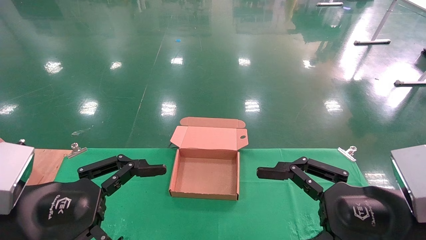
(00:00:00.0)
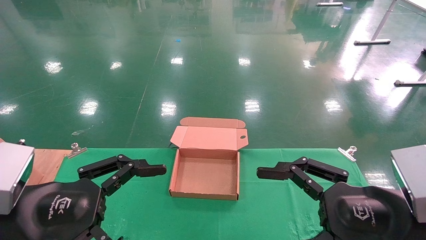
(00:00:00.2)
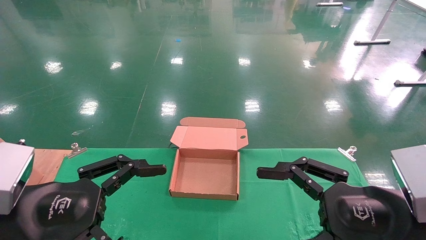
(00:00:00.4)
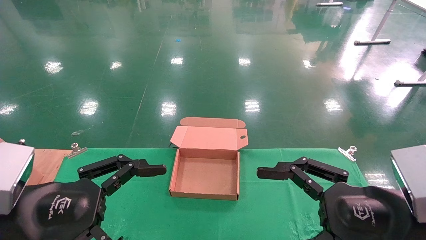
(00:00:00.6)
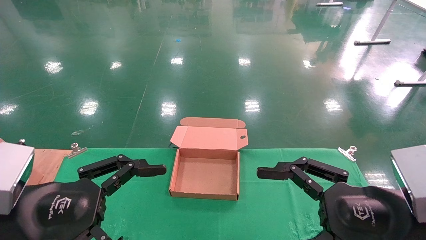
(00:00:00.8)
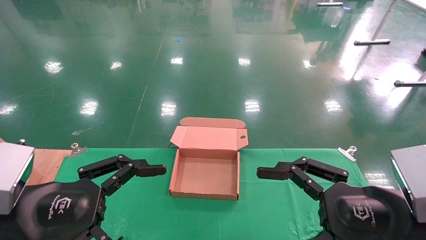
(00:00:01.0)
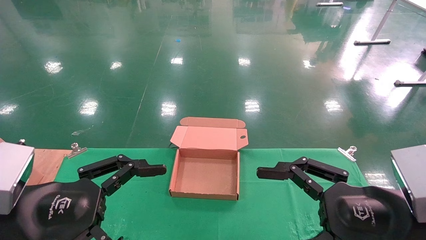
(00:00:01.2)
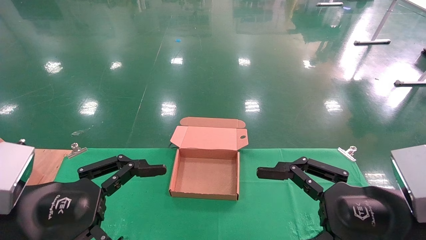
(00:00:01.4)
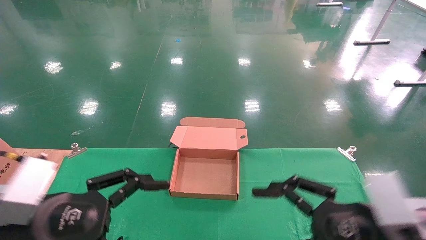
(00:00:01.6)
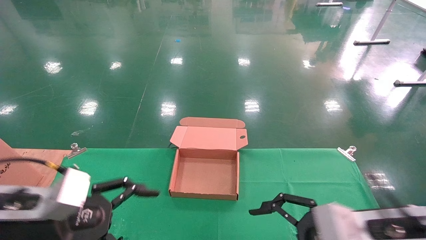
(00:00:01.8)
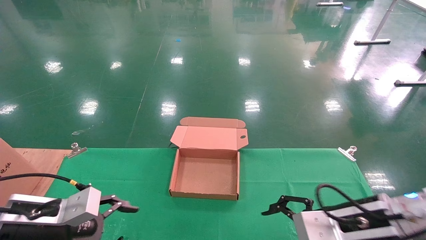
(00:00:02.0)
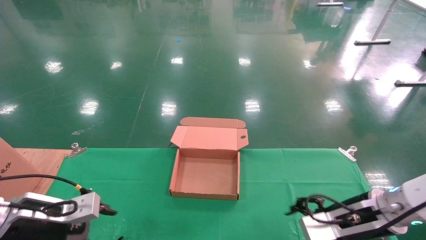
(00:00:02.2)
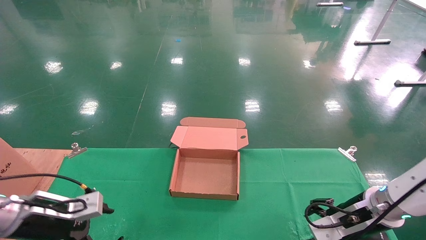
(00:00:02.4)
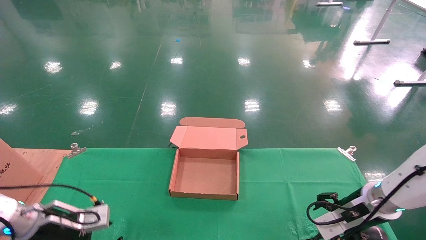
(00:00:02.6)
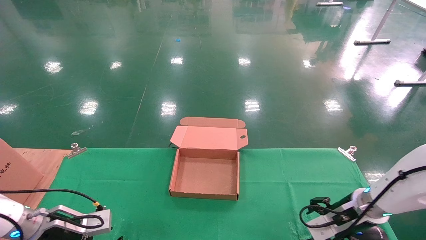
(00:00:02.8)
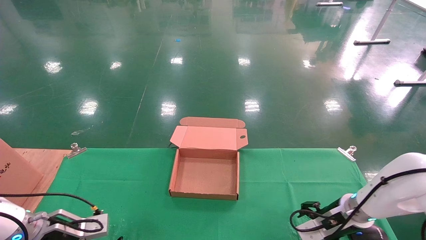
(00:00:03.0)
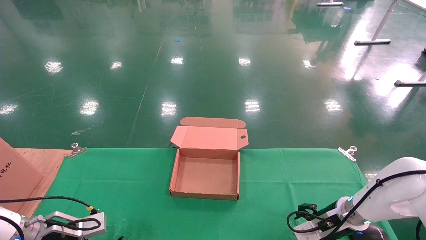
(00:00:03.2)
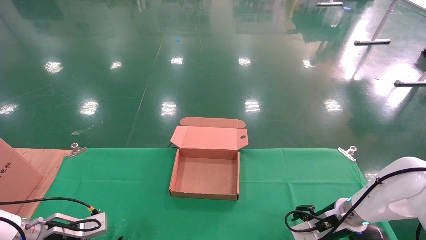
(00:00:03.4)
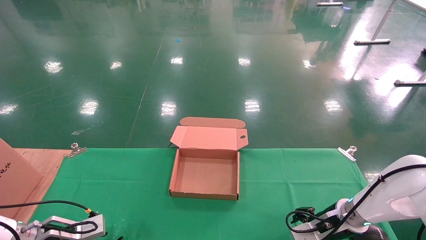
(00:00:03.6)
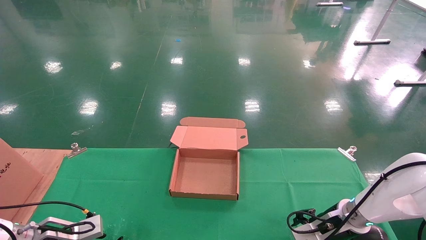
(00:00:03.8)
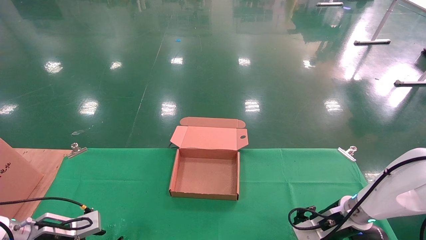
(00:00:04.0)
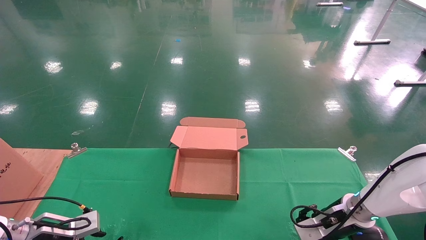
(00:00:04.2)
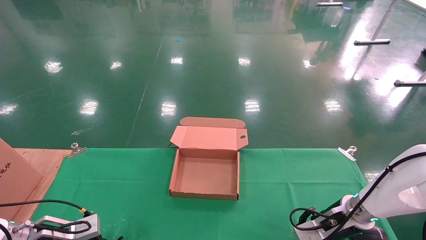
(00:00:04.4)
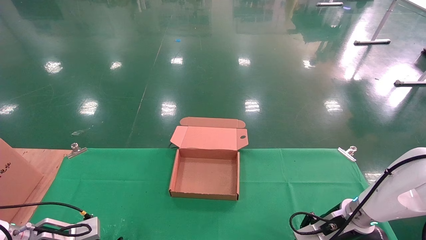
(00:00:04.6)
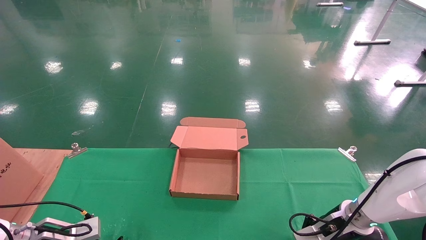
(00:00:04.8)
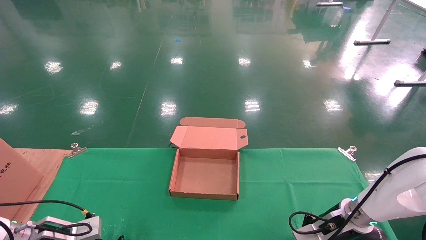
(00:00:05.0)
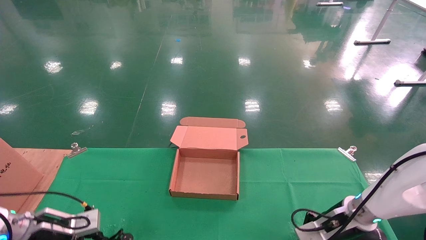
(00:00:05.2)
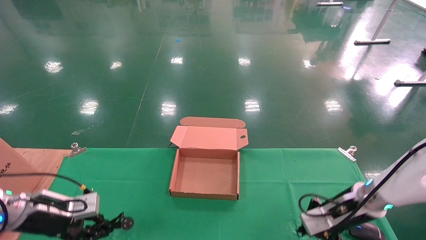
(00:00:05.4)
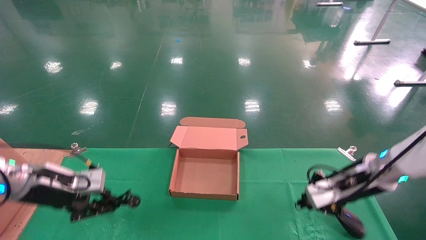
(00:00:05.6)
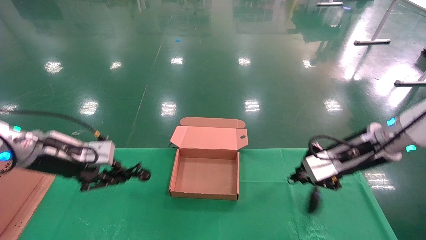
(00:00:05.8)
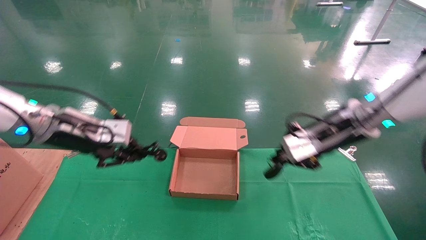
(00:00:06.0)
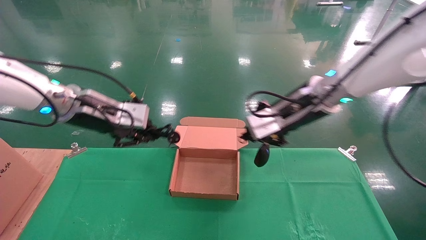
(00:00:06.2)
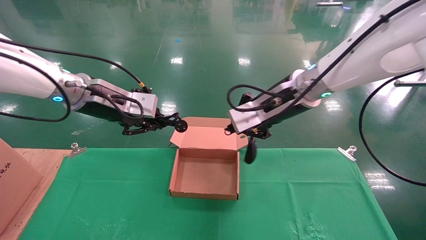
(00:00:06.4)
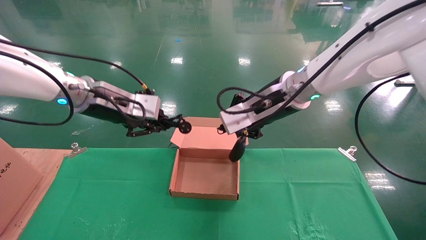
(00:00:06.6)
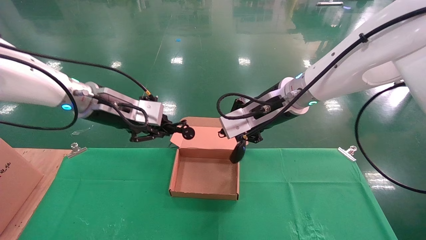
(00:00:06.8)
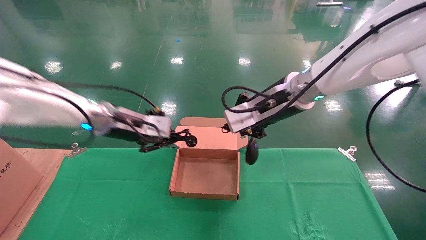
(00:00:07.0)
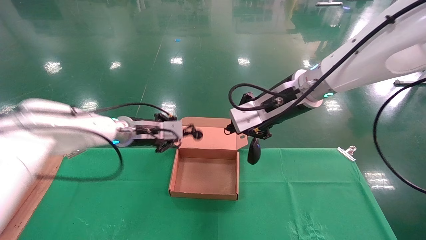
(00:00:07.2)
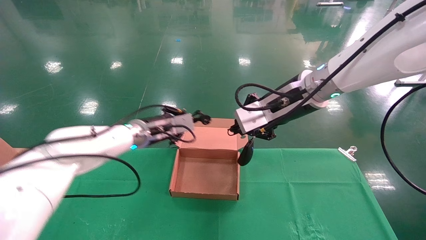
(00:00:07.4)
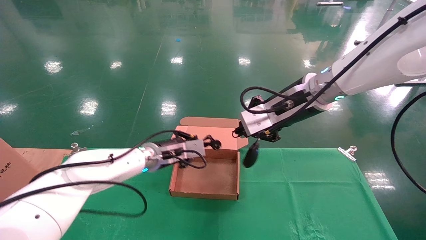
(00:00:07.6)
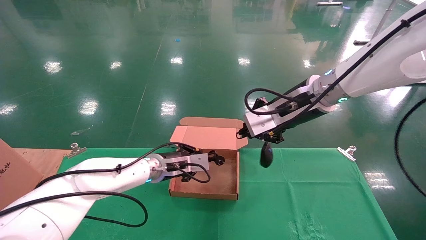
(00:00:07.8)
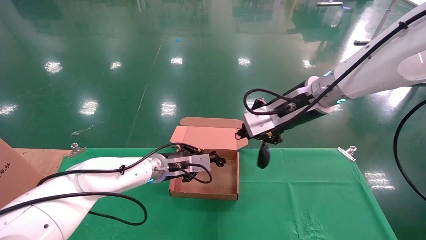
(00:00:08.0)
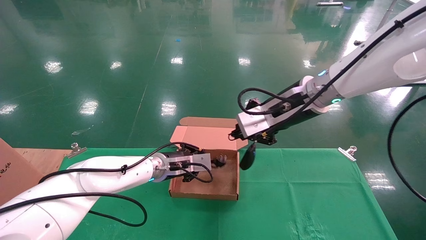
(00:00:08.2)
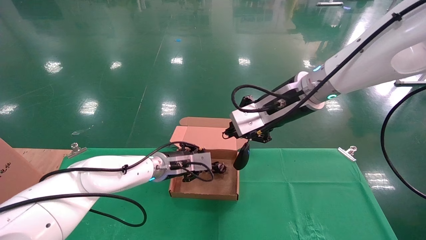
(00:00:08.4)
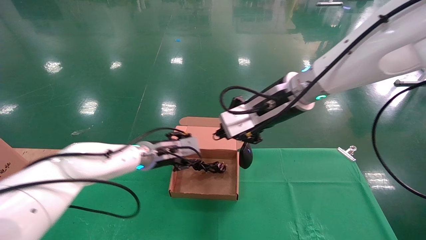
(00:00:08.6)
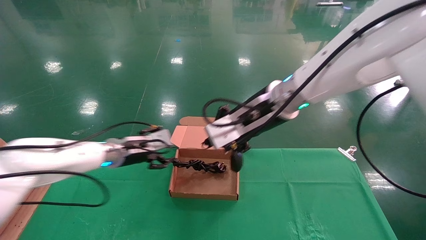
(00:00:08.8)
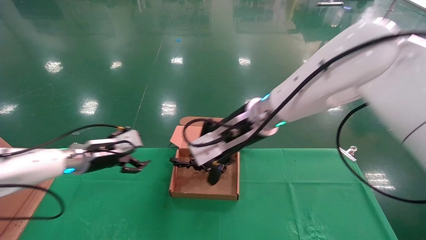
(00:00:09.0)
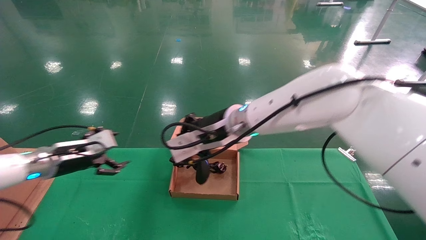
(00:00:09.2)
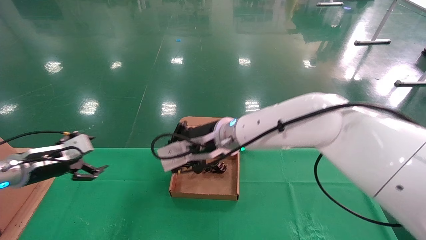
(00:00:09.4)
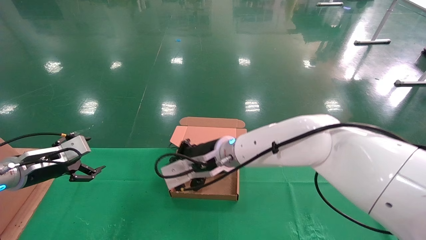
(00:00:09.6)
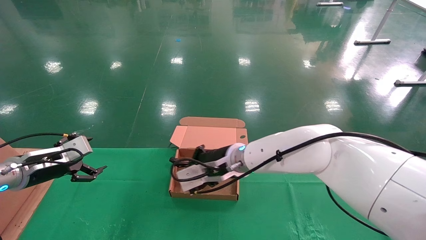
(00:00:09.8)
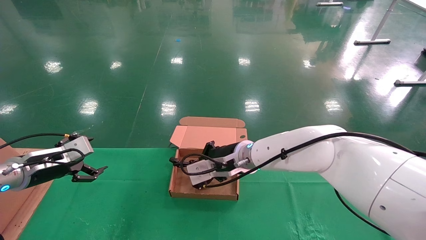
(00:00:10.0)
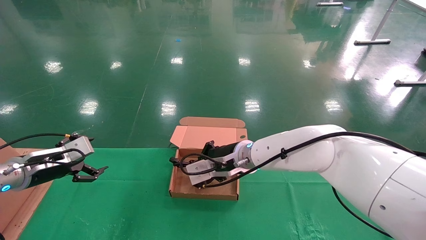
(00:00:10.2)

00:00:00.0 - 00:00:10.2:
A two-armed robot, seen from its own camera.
Step, 00:00:02.0 - 00:00:05.8: Grab and lift both the mouse and power cord from the accessory packaging area at the same time.
00:00:00.0 - 00:00:01.4: Both grippers stay about where they are.
00:00:01.4 - 00:00:03.0: The right gripper shifts approximately 25 cm forward and downward, while the left gripper moves forward, downward and to the left, roughly 25 cm.
00:00:03.0 - 00:00:04.4: The right gripper closes. The left gripper closes.
00:00:04.4 - 00:00:05.8: Both grippers travel together upward, about 20 cm. The right gripper closes up, while the left gripper closes its fingers.
00:00:05.8 - 00:00:07.2: The left gripper moves to the right and forward, about 15 cm. The right gripper heads to the left and upward, covering some 15 cm.
00:00:07.2 - 00:00:08.8: The left gripper heads downward and to the left, covering about 10 cm, and opens, while the right gripper travels to the left by about 5 cm.
00:00:08.8 - 00:00:10.2: The right gripper is displaced downward and forward by roughly 15 cm. Meanwhile the left gripper goes some 20 cm to the left and backward, and opens.

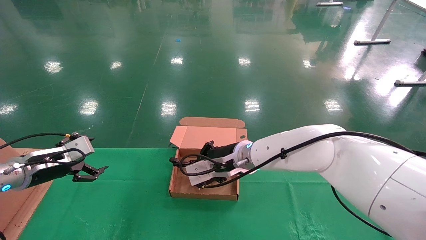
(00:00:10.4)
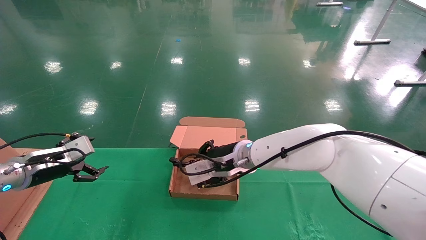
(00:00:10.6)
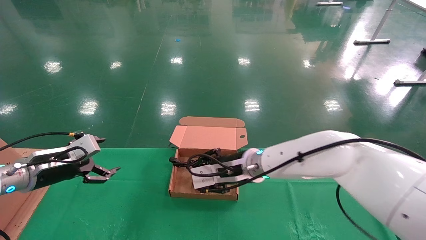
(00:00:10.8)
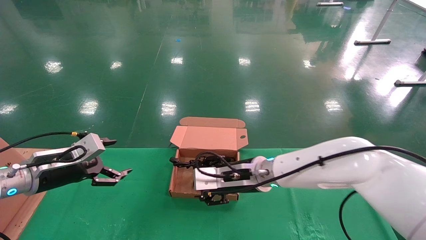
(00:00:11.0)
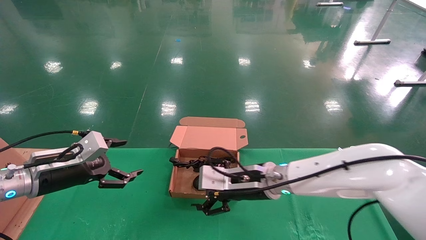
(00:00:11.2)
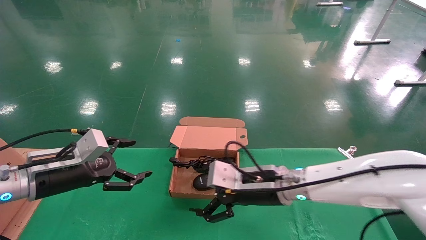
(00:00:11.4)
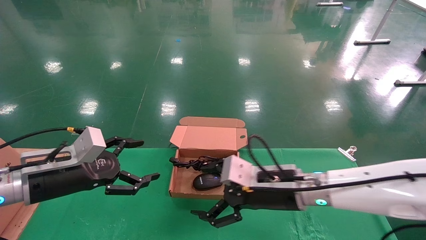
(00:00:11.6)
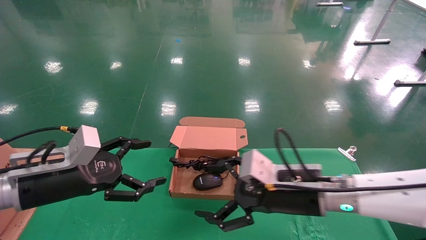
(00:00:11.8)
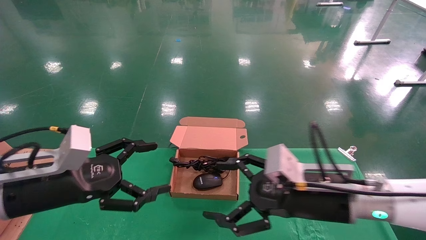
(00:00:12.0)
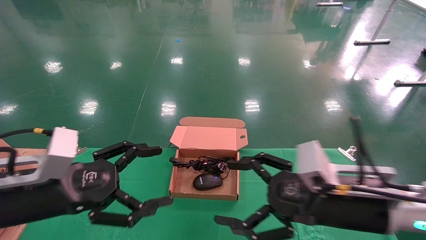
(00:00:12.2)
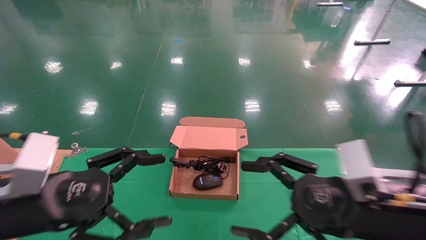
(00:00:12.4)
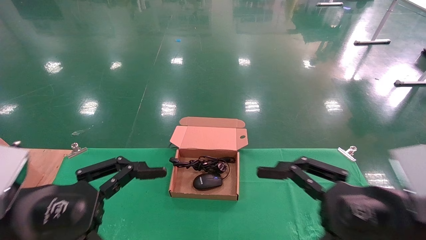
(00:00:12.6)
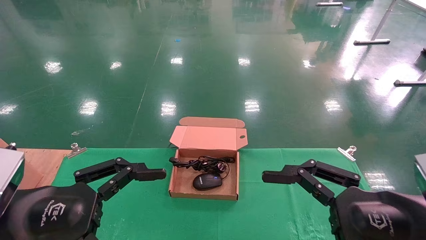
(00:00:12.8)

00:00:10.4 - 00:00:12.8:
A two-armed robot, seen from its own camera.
00:00:10.4 - 00:00:11.6: The left gripper travels to the right and backward by some 15 cm. The right gripper shifts some 15 cm backward and to the right, and opens up.
00:00:11.6 - 00:00:12.8: The left gripper moves backward, some 15 cm. Meanwhile the right gripper moves backward and to the right, some 20 cm.
